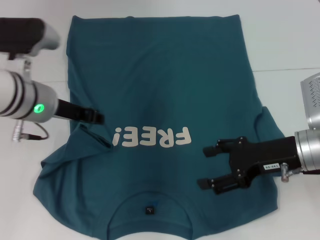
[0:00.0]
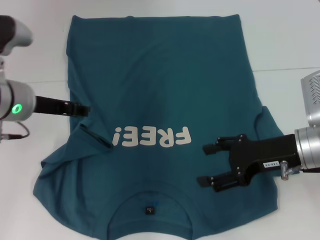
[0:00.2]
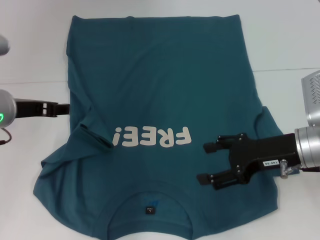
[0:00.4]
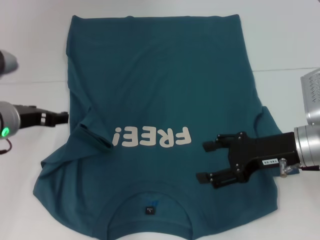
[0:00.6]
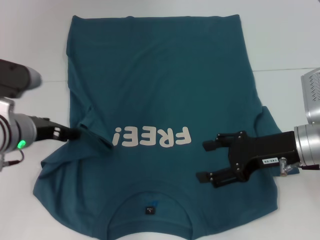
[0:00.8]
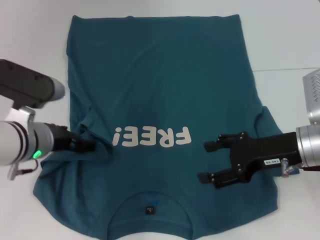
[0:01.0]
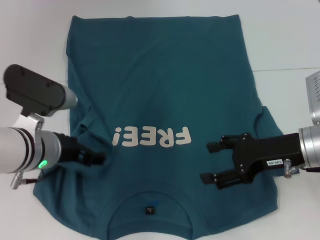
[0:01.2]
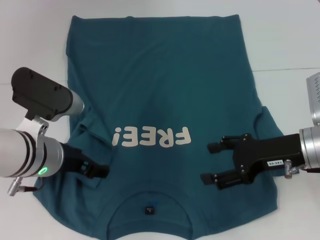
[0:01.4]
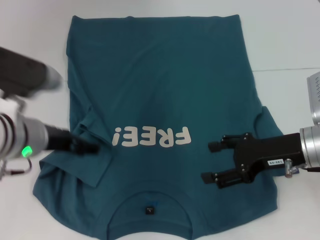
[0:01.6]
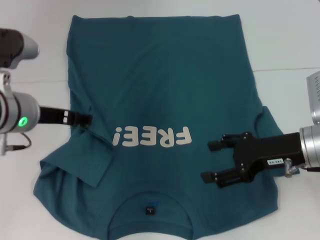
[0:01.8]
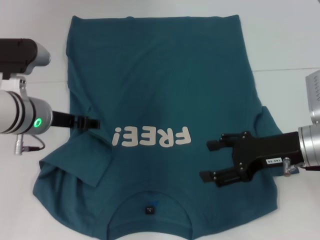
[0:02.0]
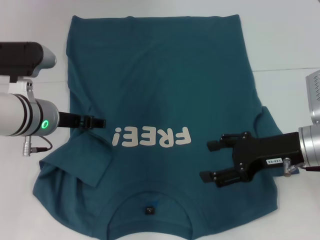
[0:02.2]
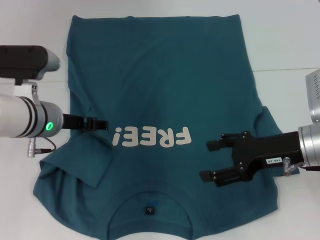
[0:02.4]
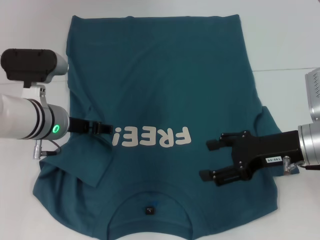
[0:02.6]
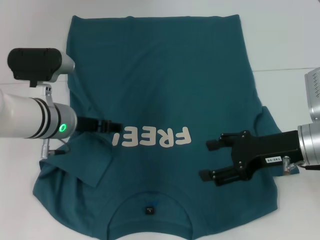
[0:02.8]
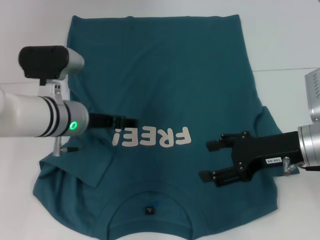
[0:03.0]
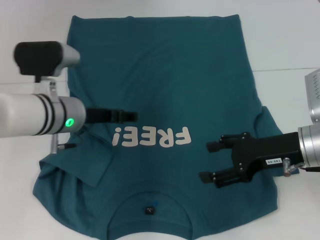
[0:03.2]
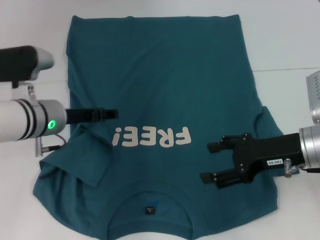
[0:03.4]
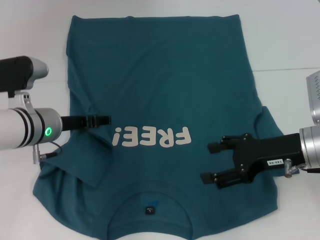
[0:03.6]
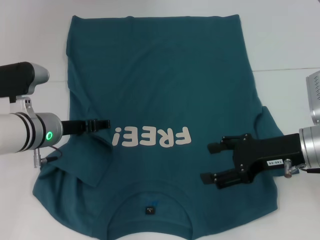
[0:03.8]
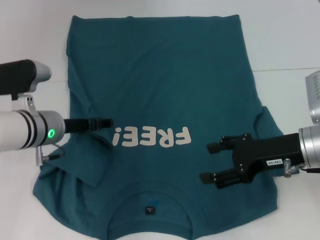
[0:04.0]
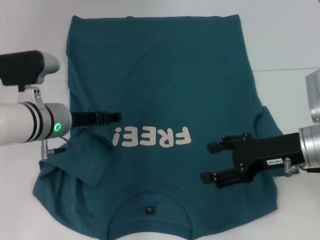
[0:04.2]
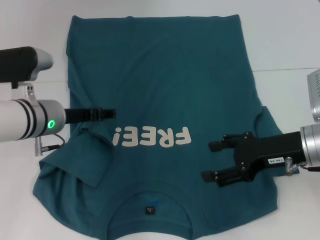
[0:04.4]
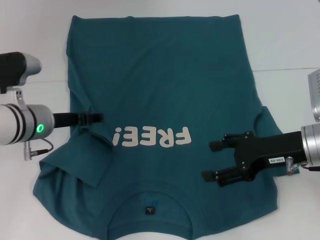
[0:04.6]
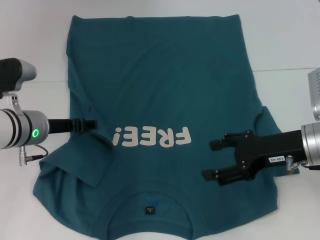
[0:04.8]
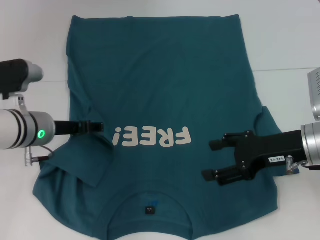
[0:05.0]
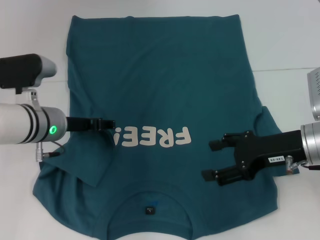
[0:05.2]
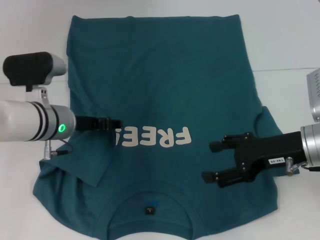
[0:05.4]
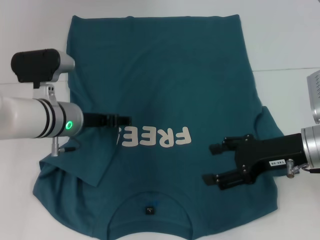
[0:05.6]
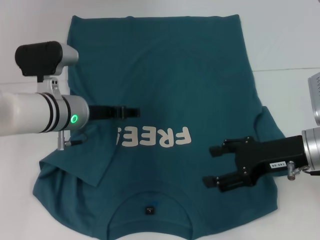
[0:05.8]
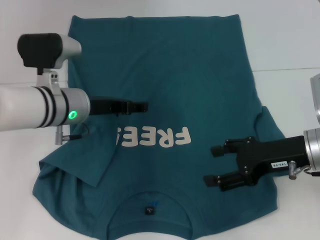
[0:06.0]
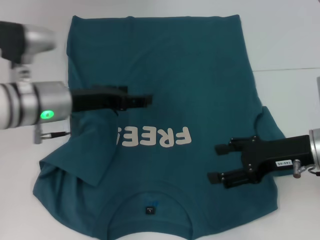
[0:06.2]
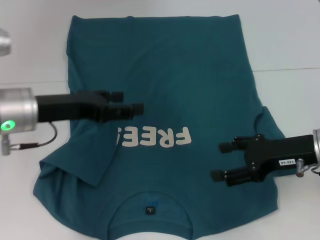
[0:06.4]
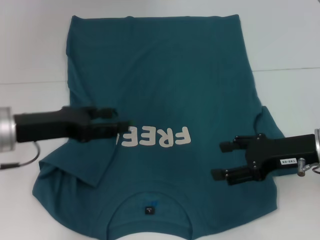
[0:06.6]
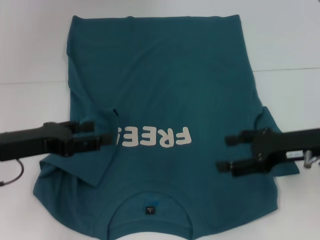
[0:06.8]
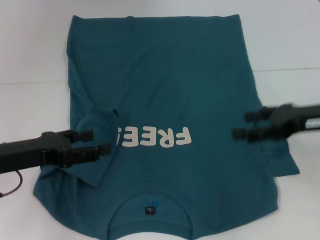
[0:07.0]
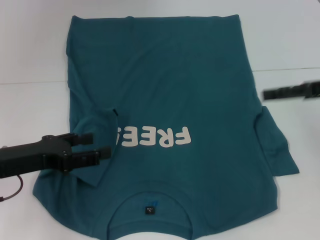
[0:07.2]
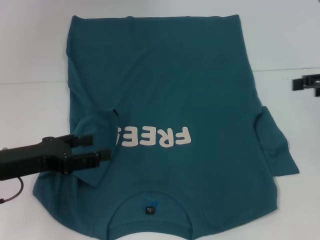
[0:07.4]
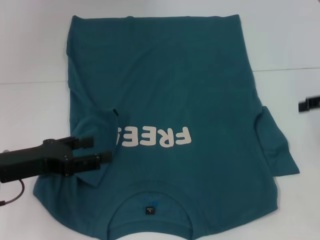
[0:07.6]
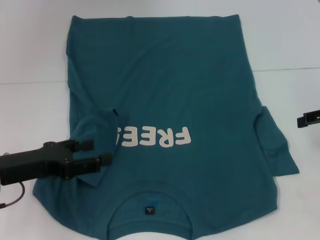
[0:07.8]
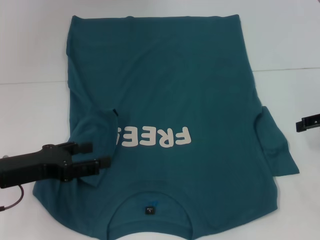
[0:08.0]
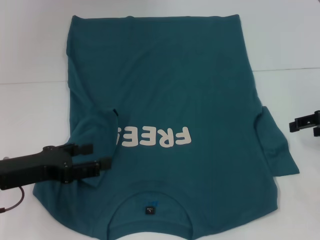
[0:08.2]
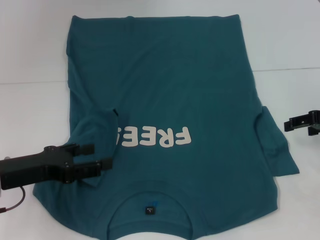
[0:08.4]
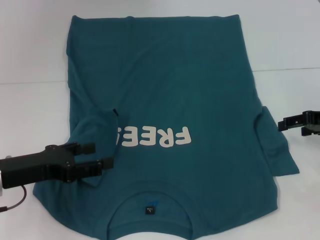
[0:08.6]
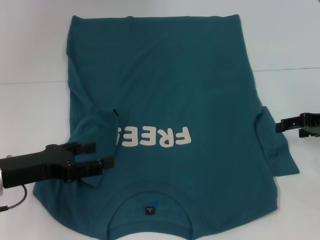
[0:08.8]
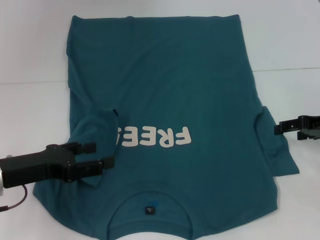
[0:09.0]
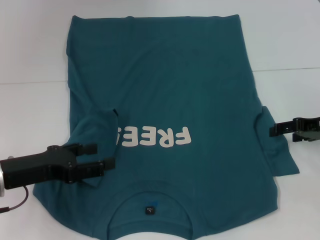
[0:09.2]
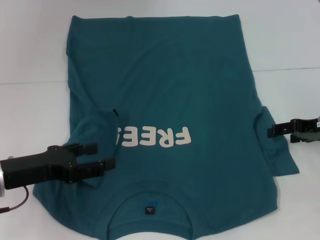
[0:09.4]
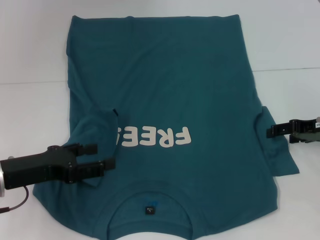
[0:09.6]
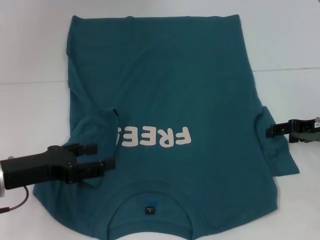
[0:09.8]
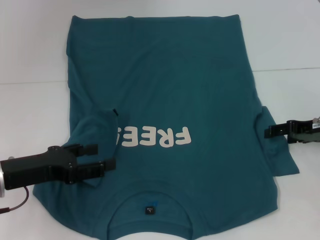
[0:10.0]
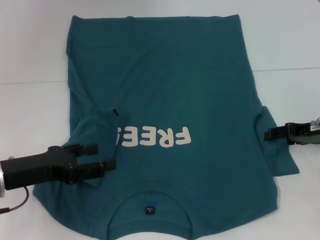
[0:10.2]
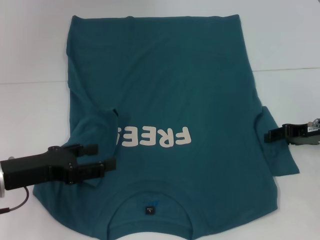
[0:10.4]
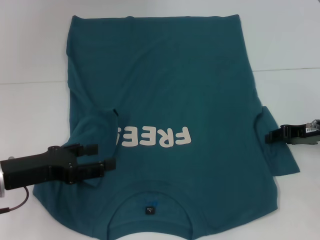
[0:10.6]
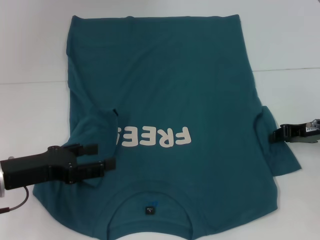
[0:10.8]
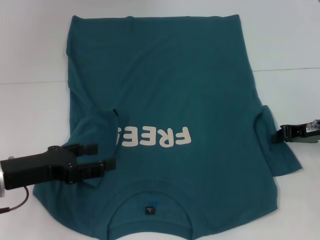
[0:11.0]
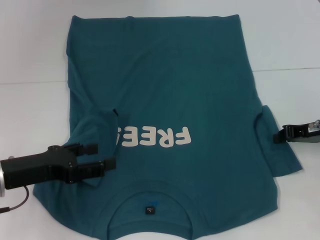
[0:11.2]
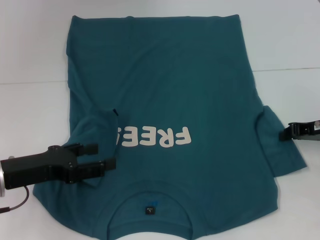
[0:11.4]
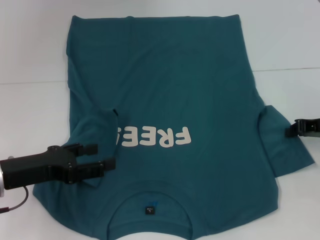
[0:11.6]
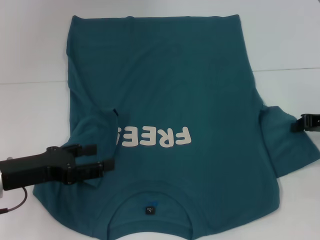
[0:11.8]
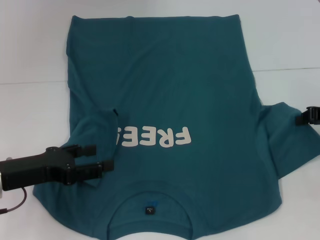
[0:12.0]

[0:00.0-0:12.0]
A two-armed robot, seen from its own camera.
Step, 0:00.0 to 0:05.4: Fold the bottom left sleeve with your left hand.
0:00.0 to 0:01.6: The left gripper shifts some 5 cm backward, and opens up.
0:01.6 to 0:03.0: The left gripper heads forward, covering roughly 5 cm.
0:03.0 to 0:04.4: The grippers stay close to where they were, moving slightly.
0:04.4 to 0:06.0: The grippers move only a little.
0:06.0 to 0:07.6: The left gripper travels to the left and backward by about 15 cm. Meanwhile the right gripper is displaced to the right and upward by some 15 cm.
0:07.6 to 0:09.0: The right gripper is displaced downward by about 5 cm.
0:09.0 to 0:10.4: The grippers make only small movements.
0:10.4 to 0:12.0: The right gripper closes up.

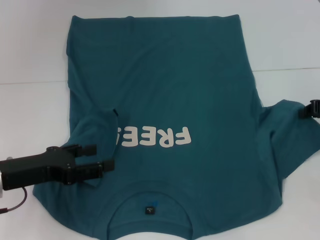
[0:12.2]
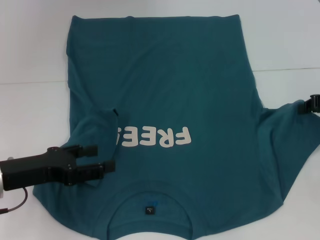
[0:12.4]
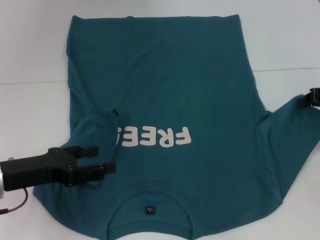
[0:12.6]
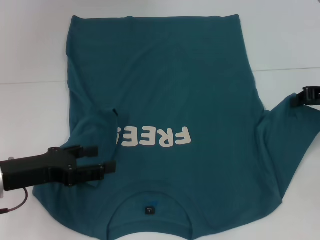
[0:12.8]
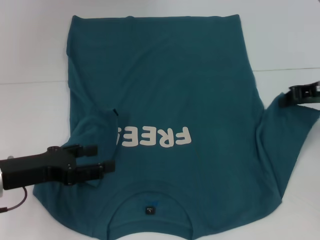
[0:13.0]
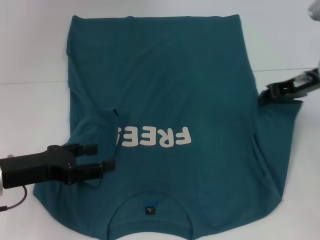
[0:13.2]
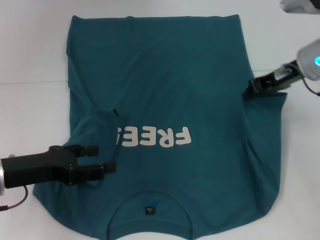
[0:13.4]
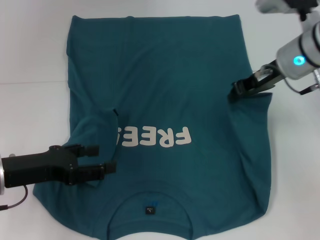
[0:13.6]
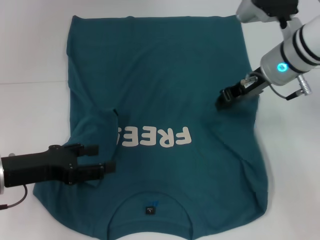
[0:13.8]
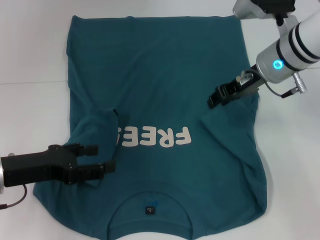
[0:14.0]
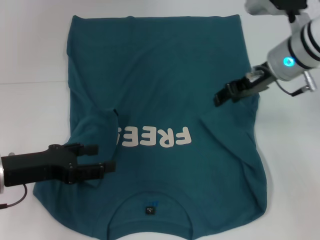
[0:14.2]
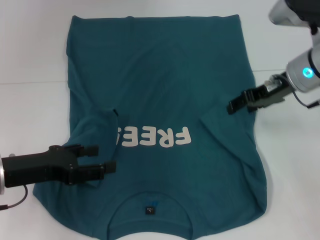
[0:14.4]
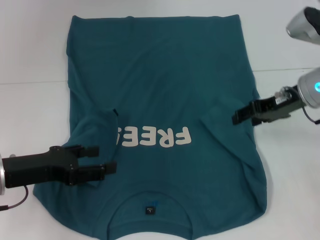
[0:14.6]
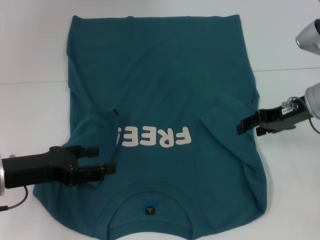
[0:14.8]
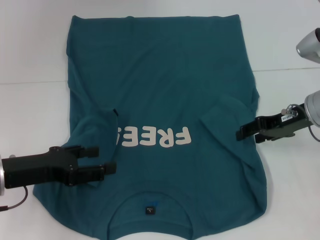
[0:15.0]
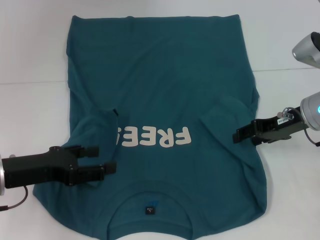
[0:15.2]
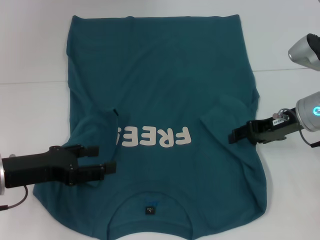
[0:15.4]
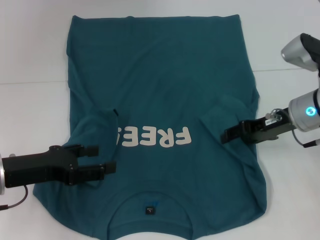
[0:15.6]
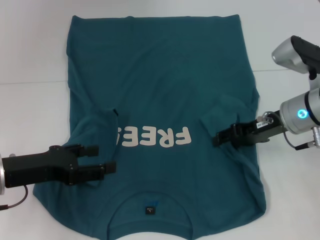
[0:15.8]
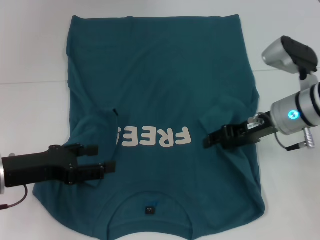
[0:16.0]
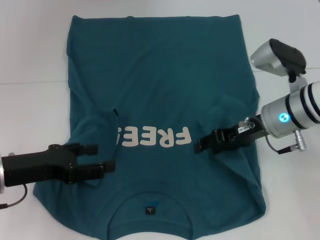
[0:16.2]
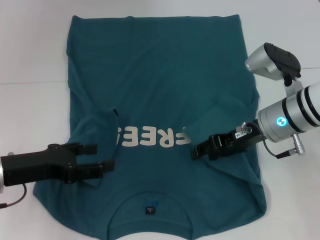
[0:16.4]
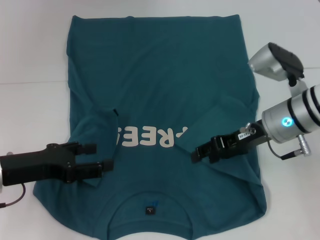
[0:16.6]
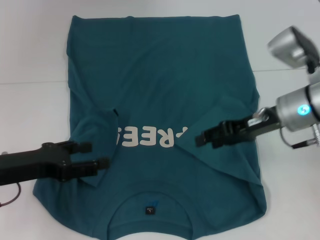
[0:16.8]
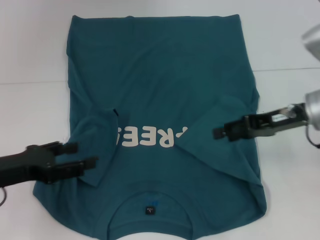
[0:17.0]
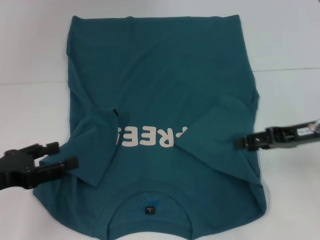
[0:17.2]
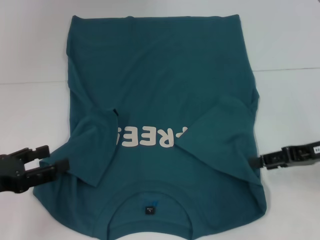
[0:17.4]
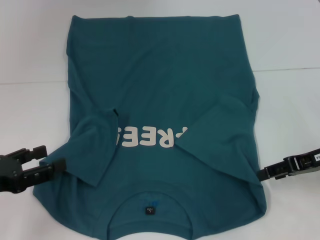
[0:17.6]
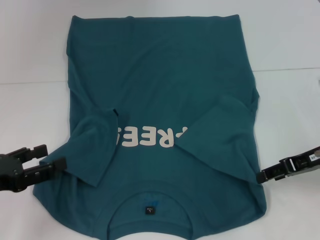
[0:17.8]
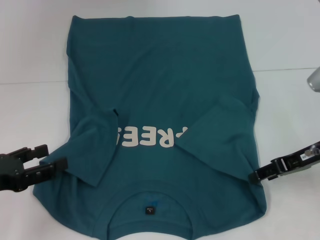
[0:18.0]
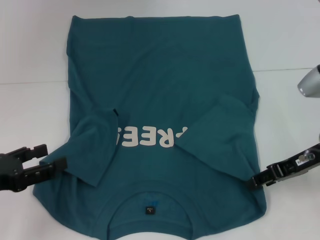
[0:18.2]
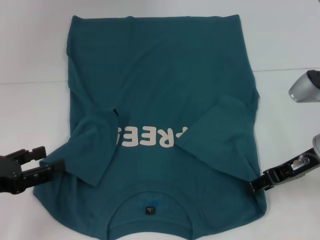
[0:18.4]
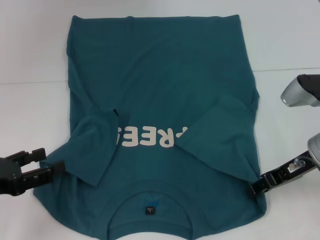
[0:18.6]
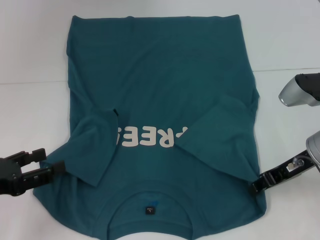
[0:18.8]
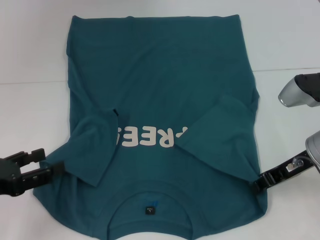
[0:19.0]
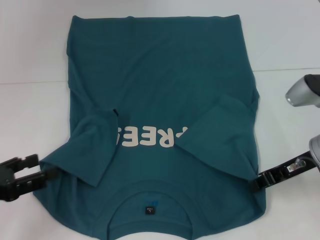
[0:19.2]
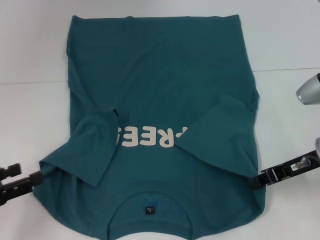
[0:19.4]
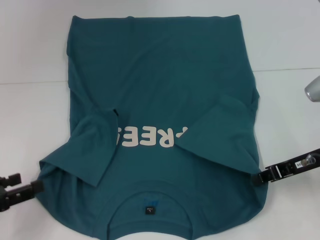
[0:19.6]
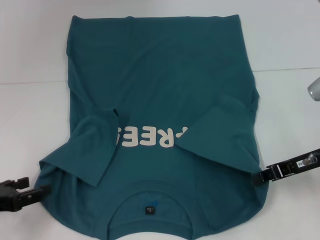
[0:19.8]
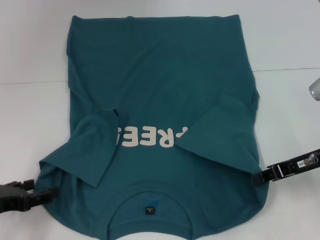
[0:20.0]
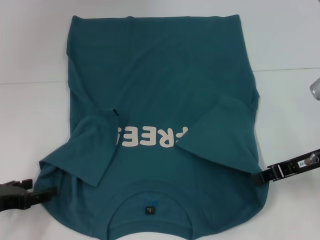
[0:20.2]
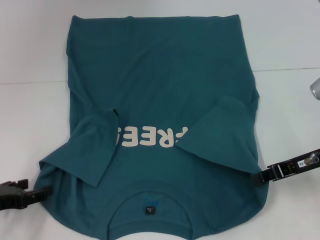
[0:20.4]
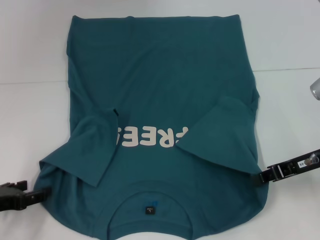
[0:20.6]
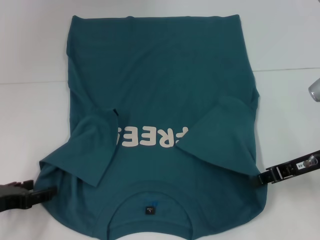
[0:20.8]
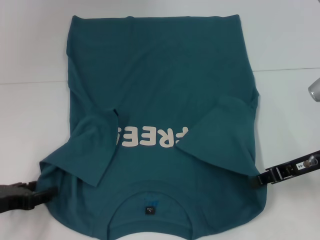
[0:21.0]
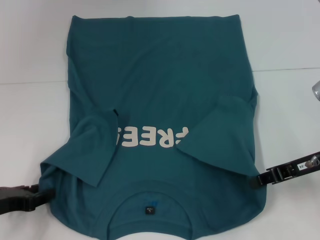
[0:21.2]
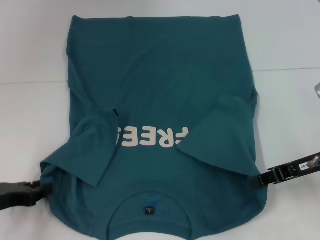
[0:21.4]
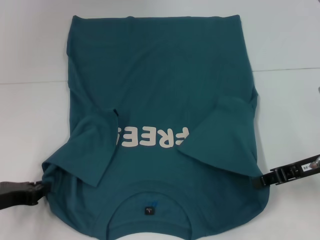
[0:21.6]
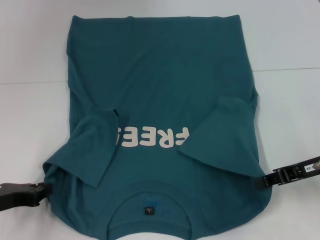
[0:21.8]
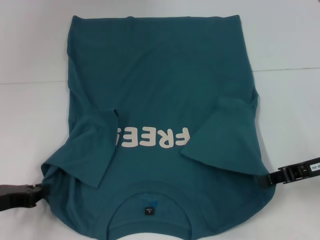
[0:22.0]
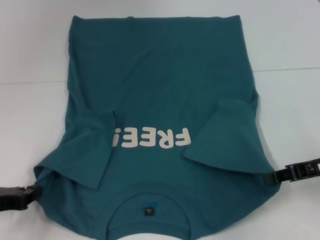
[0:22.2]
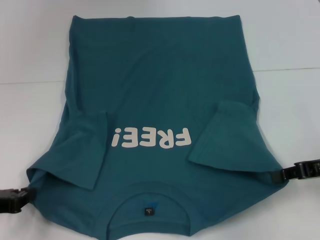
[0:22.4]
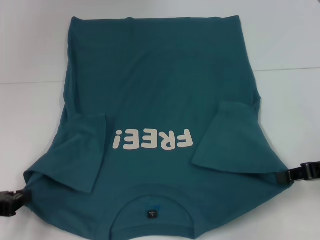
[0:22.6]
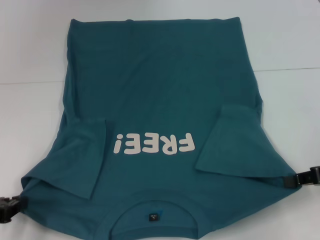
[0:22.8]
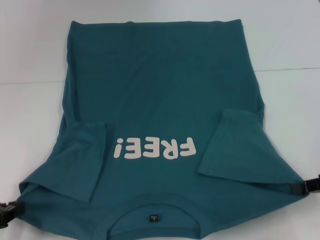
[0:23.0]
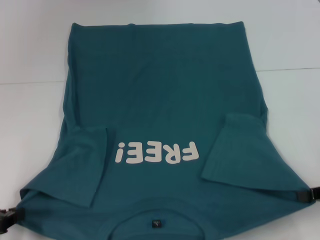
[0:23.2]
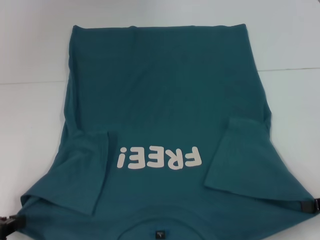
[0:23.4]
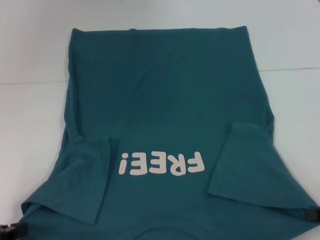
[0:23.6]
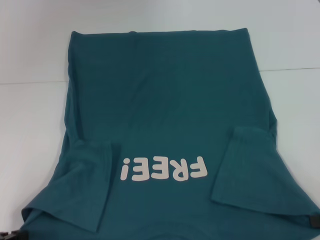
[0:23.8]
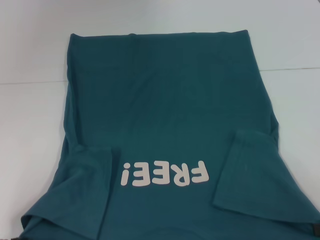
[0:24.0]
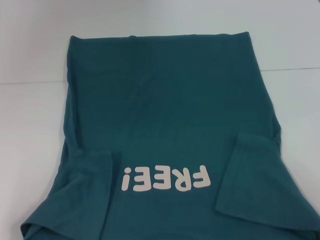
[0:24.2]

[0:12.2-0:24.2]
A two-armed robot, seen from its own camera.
Step, 0:12.2 to 0:16.4: Fold the bottom right sleeve to the right.
Step, 0:16.6 to 0:18.4: Grab the bottom right corner with your right hand.
Step, 0:18.6 to 0:21.8: Grab the bottom left corner with your left hand.
0:12.2 to 0:13.8: The right gripper shifts approximately 15 cm to the left.
0:13.8 to 0:15.2: The right gripper travels to the right and downward by roughly 10 cm, and opens its fingers.
0:15.2 to 0:16.6: The right gripper shifts roughly 5 cm to the left.
0:16.6 to 0:18.2: The right gripper shifts approximately 5 cm to the right. The left gripper heads to the left, covering approximately 5 cm.
0:18.2 to 0:19.8: The right gripper closes its fingers.
0:19.8 to 0:21.2: The grippers make only small movements.
0:21.2 to 0:22.6: The left gripper closes up. The right gripper travels to the right by approximately 5 cm.
0:22.6 to 0:24.2: The left gripper shifts approximately 5 cm backward, while the right gripper is displaced backward and to the right by approximately 10 cm.
